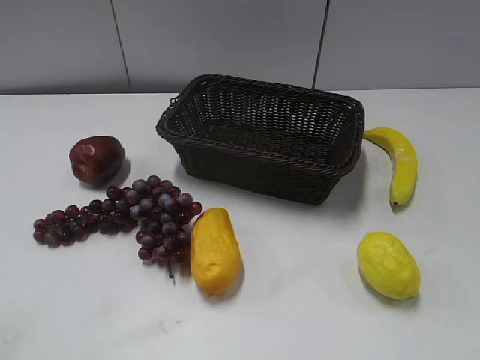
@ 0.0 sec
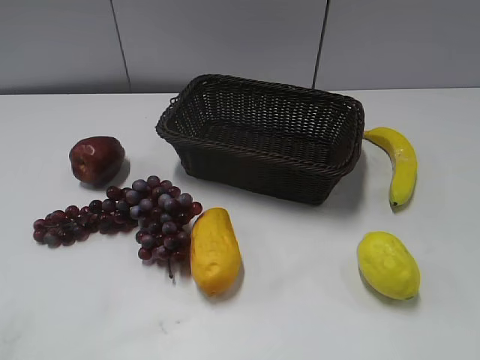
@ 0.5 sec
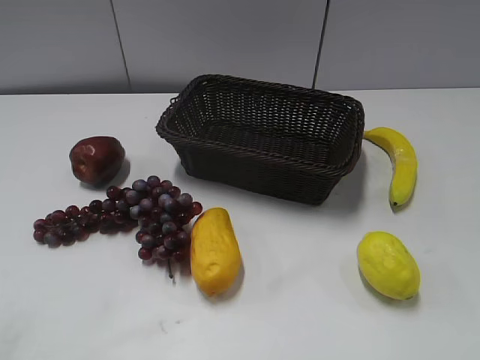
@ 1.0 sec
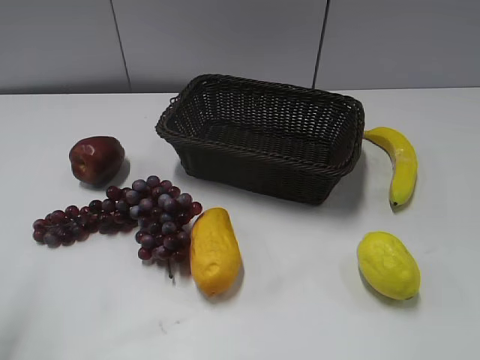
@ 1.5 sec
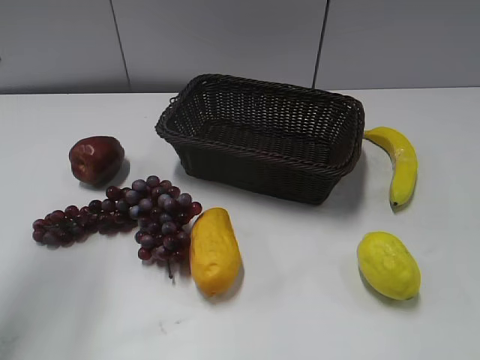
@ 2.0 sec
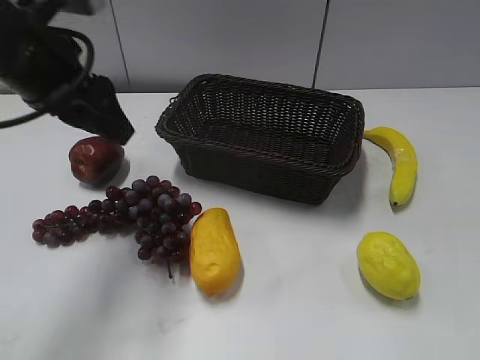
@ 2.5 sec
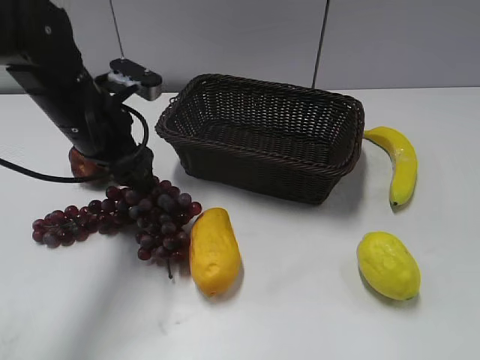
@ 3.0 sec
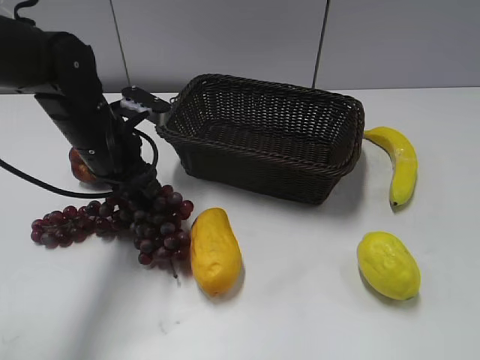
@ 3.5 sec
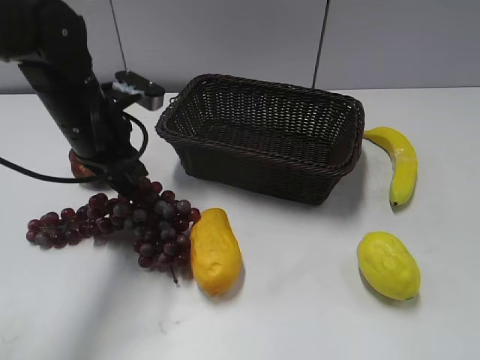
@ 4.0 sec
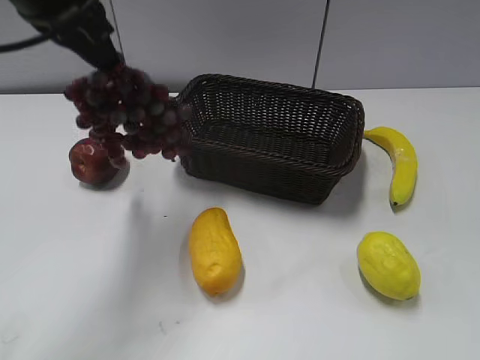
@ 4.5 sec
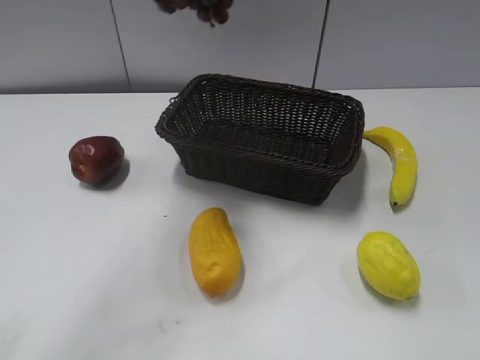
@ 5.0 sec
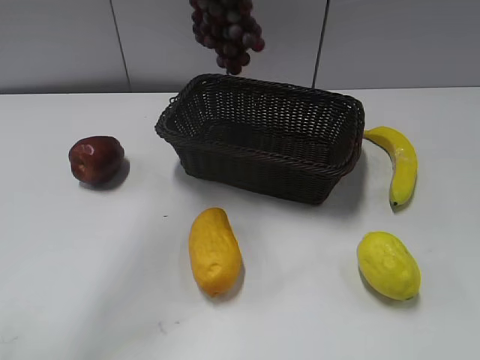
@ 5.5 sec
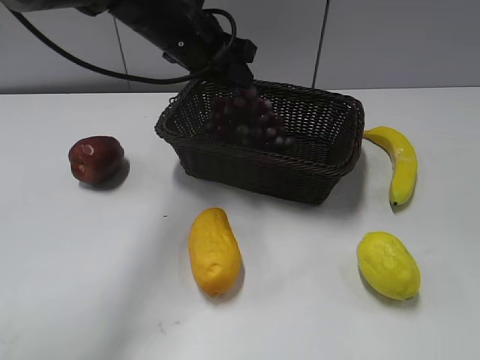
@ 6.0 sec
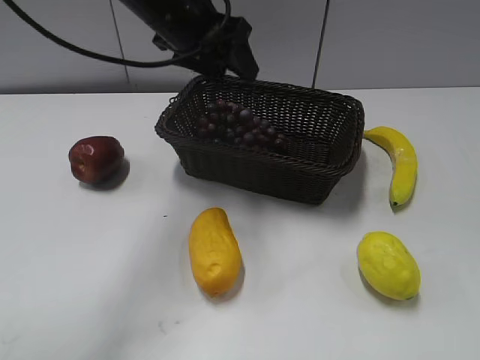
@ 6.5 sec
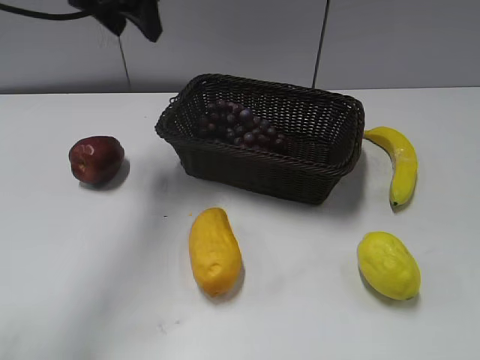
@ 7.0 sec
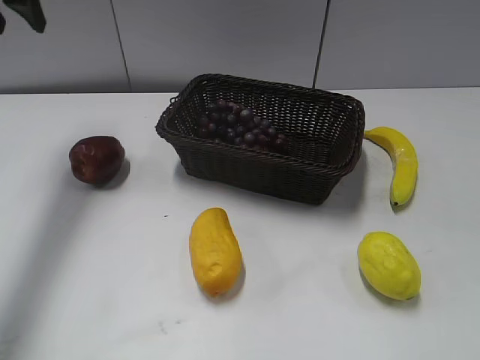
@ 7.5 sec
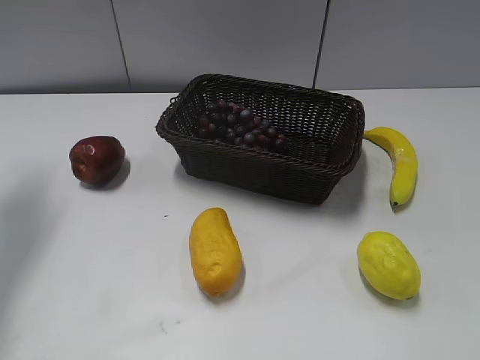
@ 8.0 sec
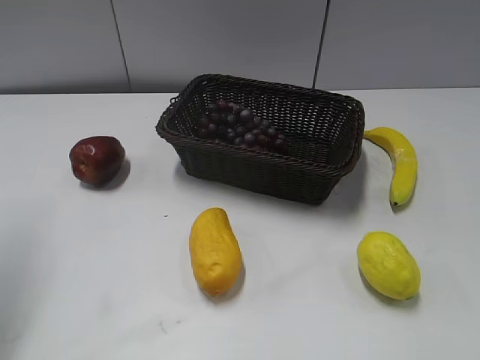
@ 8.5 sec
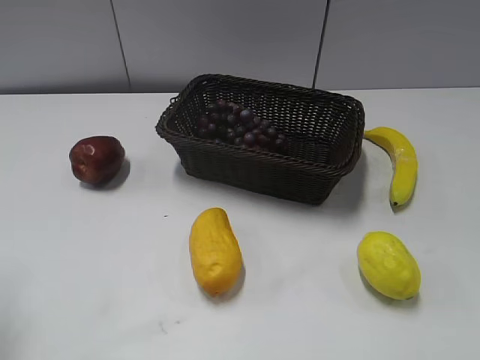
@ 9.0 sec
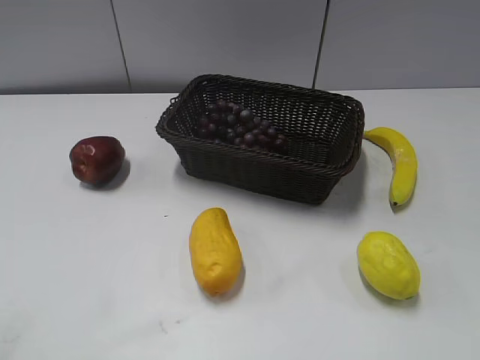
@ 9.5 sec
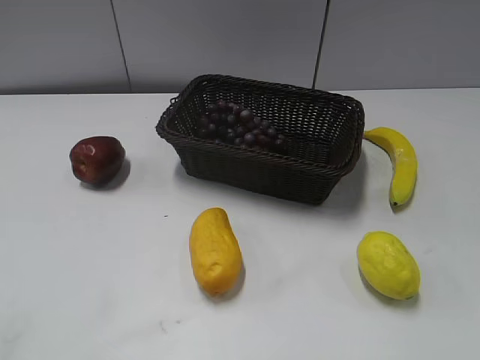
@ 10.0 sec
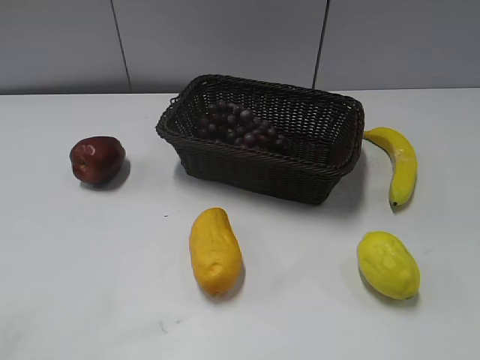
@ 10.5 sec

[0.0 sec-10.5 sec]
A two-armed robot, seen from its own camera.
Step, 2.0 sec to 4.0 sec: Grasp the grape with left gripper.
Step, 4.5 sec to 6.0 sec: Place the grape in the basket with left gripper.
2.0 sec to 4.0 sec: The left gripper travels downward, to the right and forward by approximately 20 cm, and closes.
4.0 sec to 6.5 sec: The left gripper goes up and down, some 25 cm each way, reversing 2 times, and opens up.
6.5 sec to 8.5 sec: The left gripper heads to the left and backward, covering about 30 cm.
8.5 sec to 10.5 sec: The left gripper travels backward by approximately 25 cm.

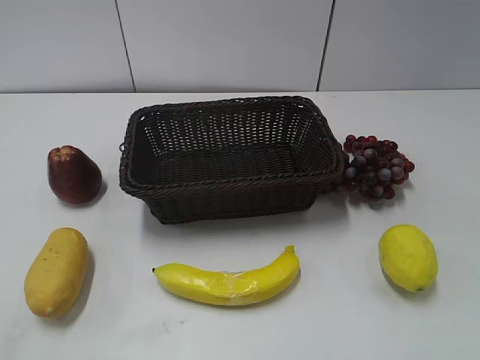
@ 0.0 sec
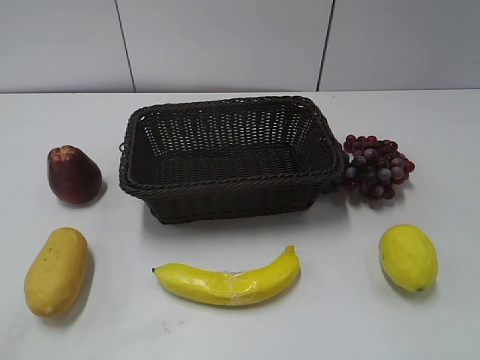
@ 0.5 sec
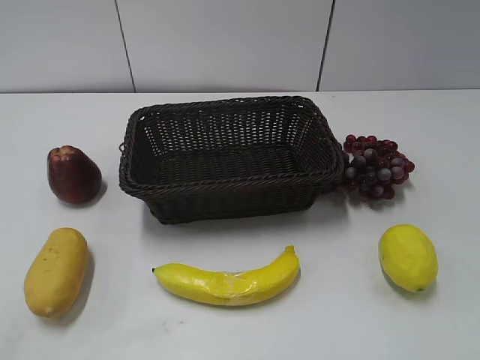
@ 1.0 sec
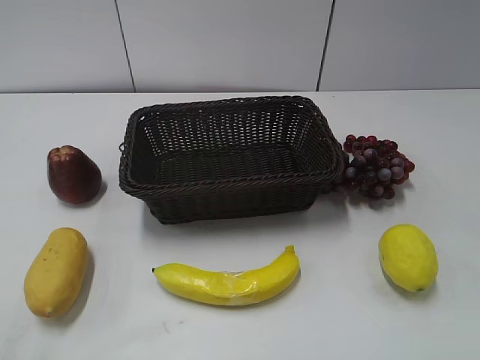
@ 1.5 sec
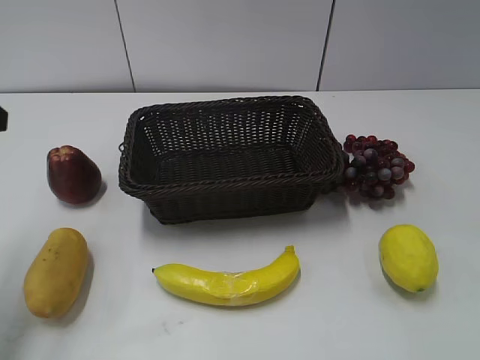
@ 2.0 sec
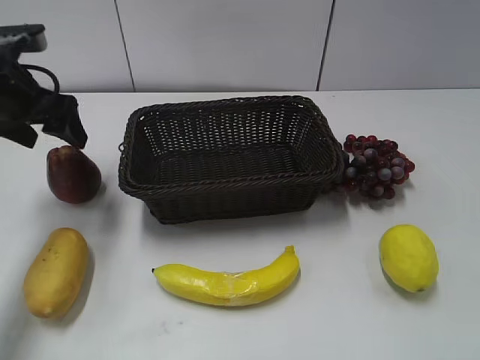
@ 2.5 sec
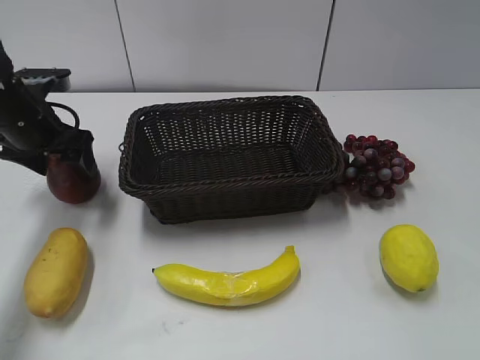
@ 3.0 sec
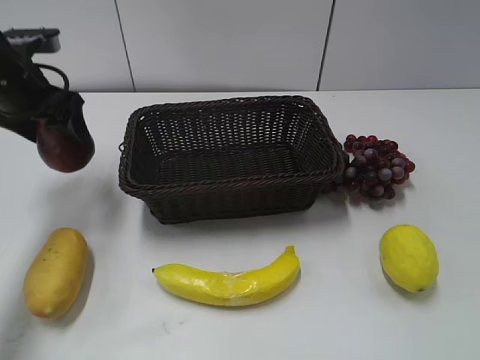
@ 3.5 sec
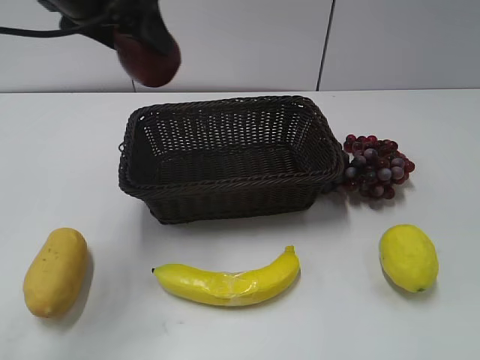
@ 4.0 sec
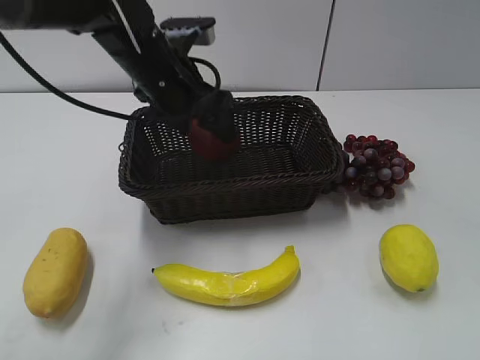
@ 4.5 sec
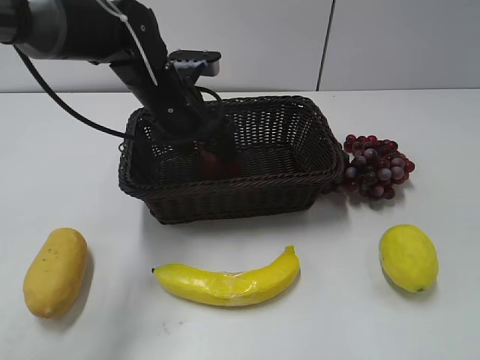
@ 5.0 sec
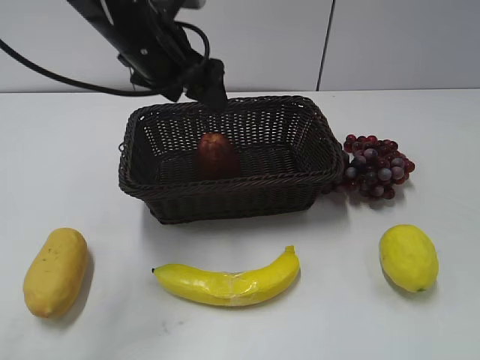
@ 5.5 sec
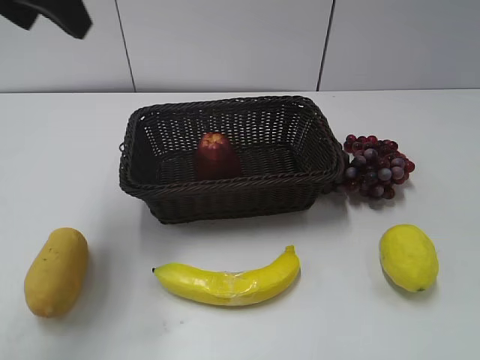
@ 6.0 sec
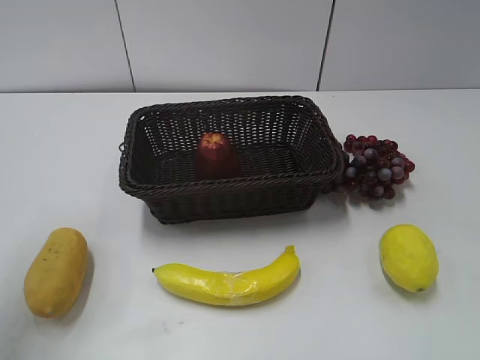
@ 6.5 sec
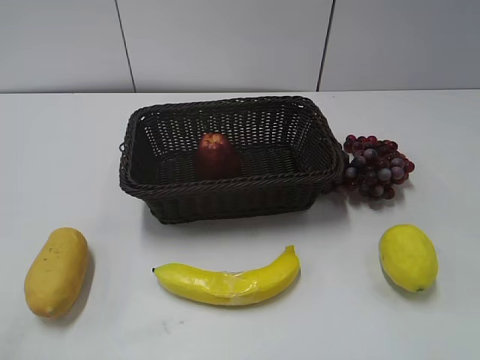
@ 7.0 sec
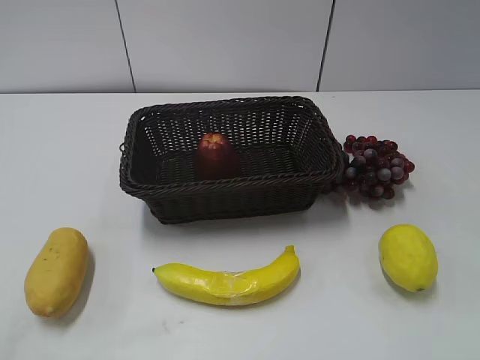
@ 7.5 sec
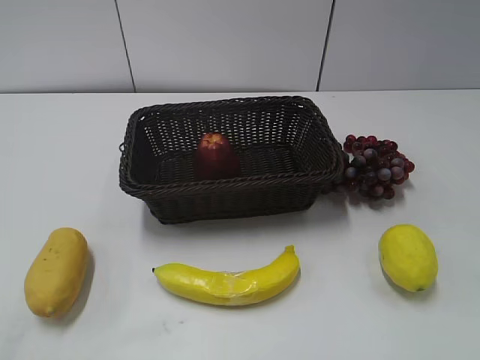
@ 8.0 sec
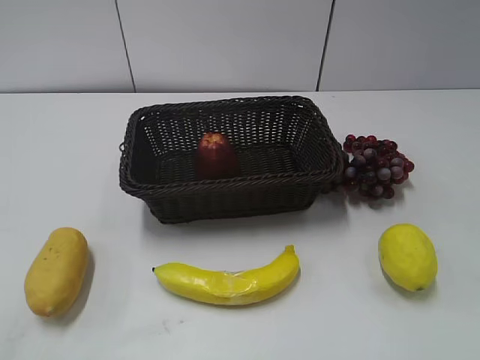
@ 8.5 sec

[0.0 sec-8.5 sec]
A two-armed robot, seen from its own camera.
Step, 2.0 sec to 3.0 sec: Grasp the apple with left gripper.
Step, 3.5 sec to 5.0 sec: Place the apple in the basket with left gripper.
2.0 sec to 4.0 sec: The left gripper heads to the right and forward, covering approximately 20 cm, moves about 15 cm downward and comes back, and closes.
4.0 sec to 6.5 sec: The left gripper moves to the left and backward, some 20 cm, reaches approximately 15 cm downward, then returns, and opens and closes again.
6.5 sec to 8.5 sec: The left gripper shifts approximately 25 cm backward and downward.

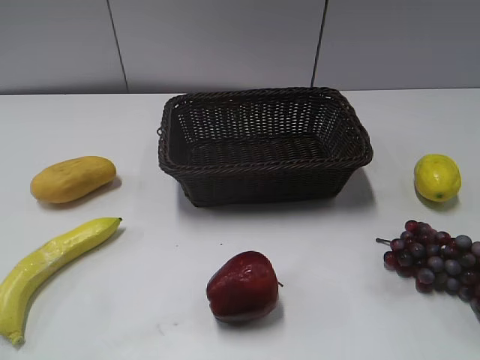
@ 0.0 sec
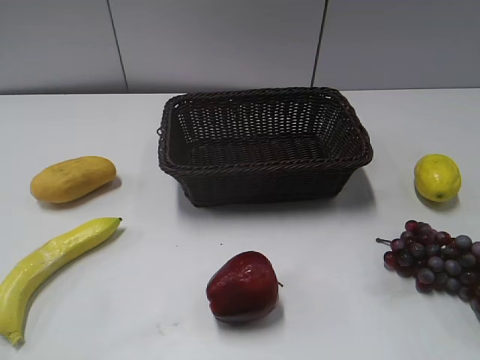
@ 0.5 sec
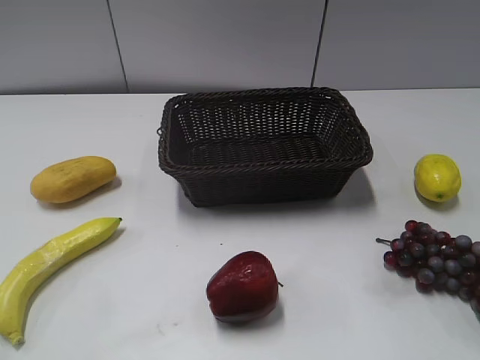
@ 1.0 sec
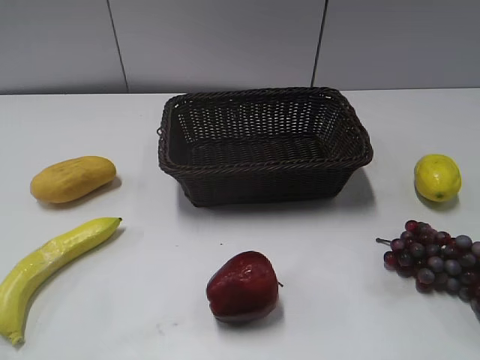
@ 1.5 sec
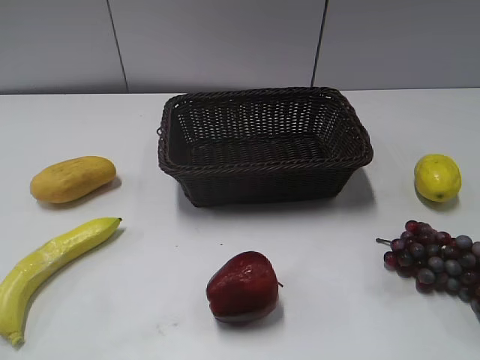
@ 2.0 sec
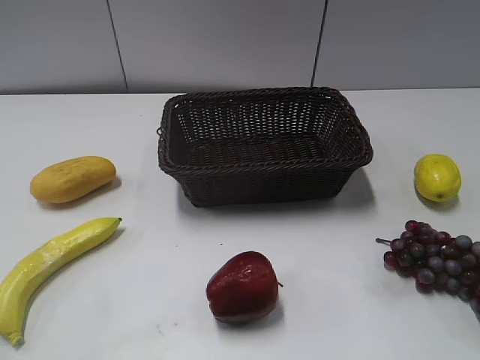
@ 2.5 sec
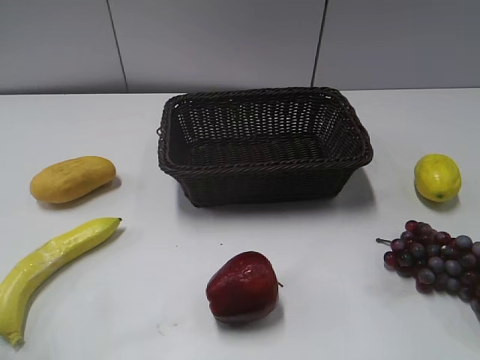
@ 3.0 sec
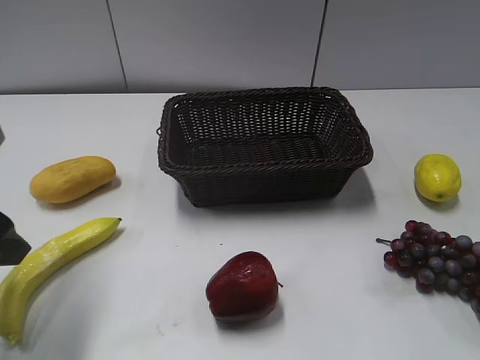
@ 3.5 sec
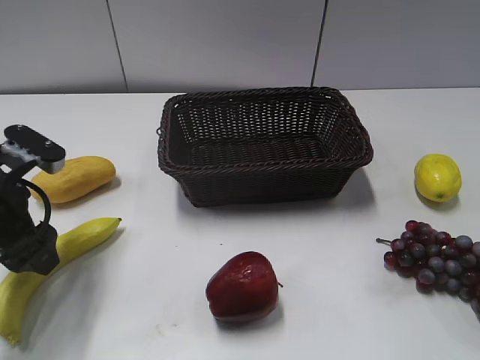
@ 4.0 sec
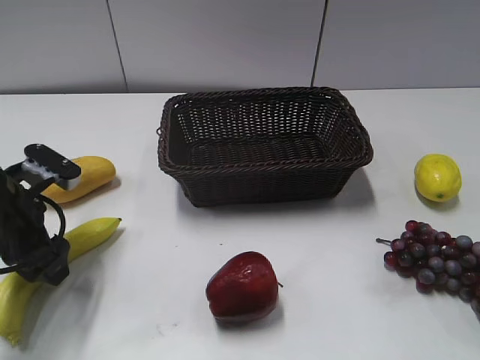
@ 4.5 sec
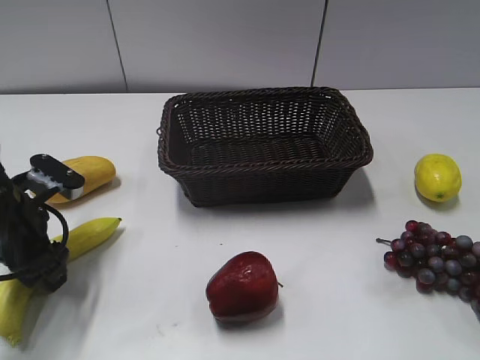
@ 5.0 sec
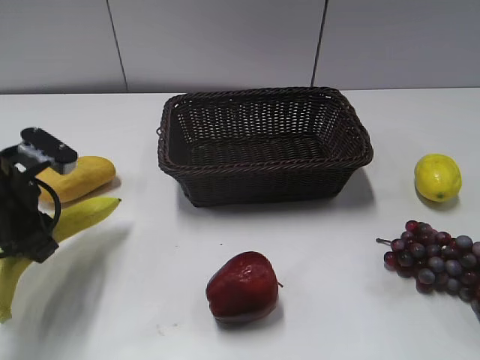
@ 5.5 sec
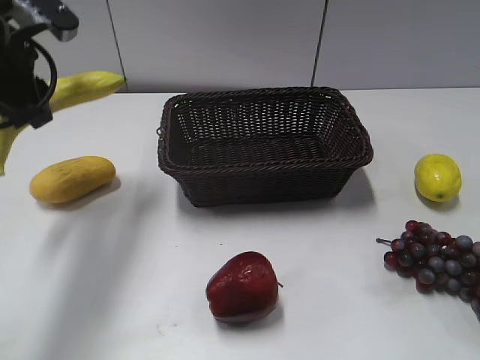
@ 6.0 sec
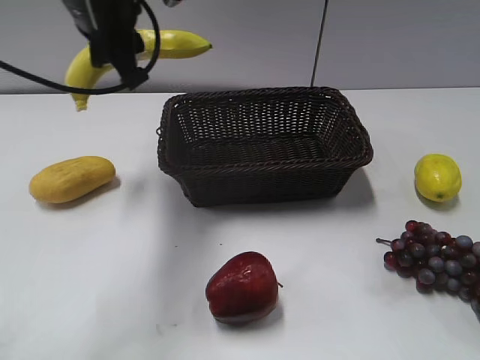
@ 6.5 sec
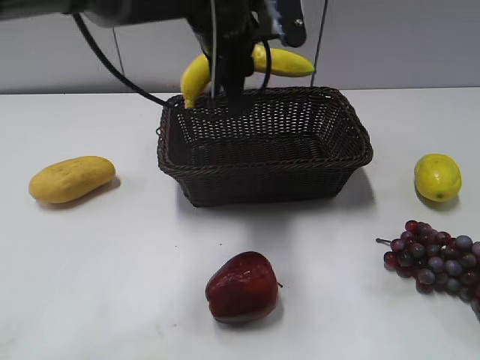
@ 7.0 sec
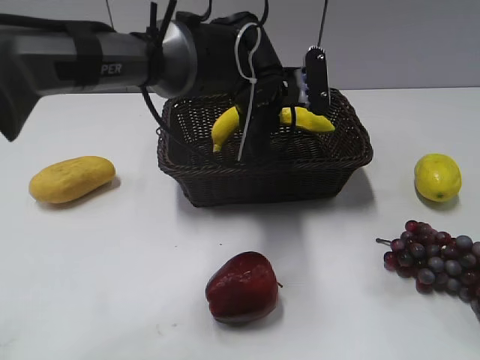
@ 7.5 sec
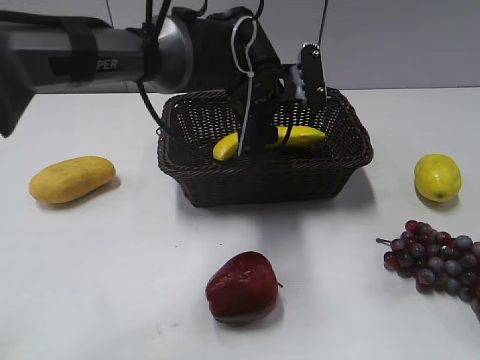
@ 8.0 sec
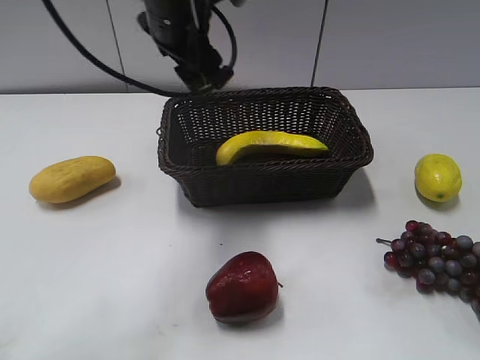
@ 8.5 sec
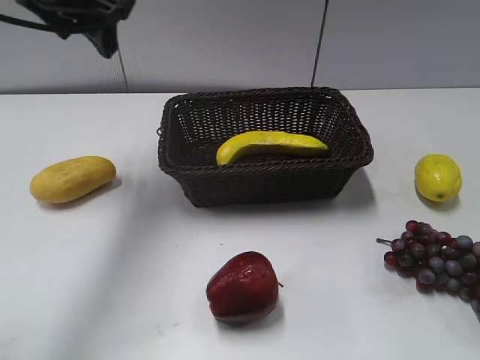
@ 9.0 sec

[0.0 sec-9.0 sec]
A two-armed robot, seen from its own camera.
Step, 3.5 sec to 5.0 sec: Grasp the banana with left gripper.
Step, 5.5 sec to 8.0 sec: Place the banana in the basket with left gripper.
2.0 sec to 4.5 sec: The left gripper moves forward and downward, about 30 cm.
4.5 sec to 7.0 sec: The left gripper travels to the right, upward and forward by about 30 cm, and closes up.
7.0 sec to 9.0 sec: The left gripper is displaced to the left and upward by approximately 20 cm, and opens its fingers.
